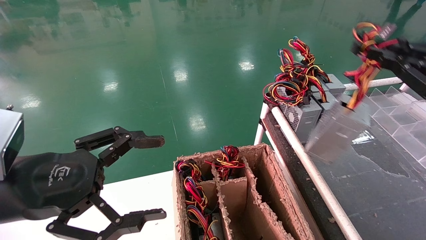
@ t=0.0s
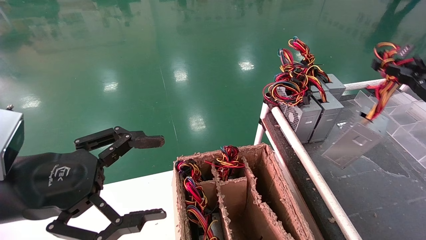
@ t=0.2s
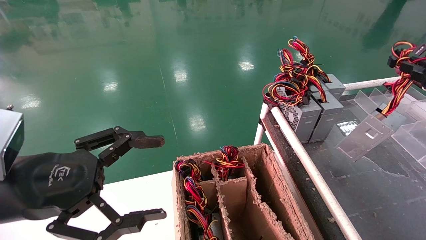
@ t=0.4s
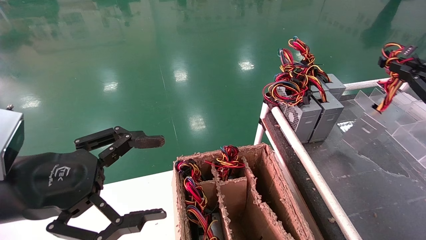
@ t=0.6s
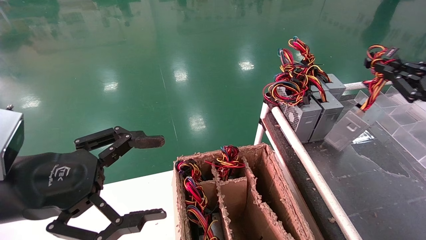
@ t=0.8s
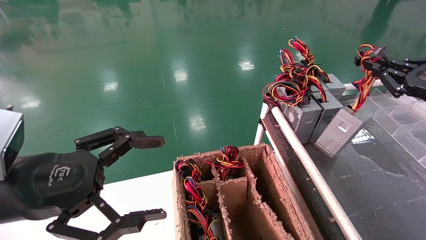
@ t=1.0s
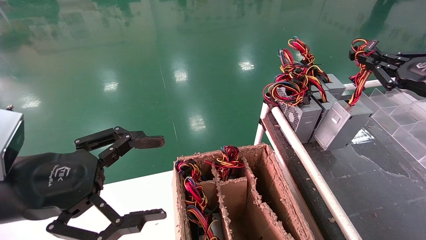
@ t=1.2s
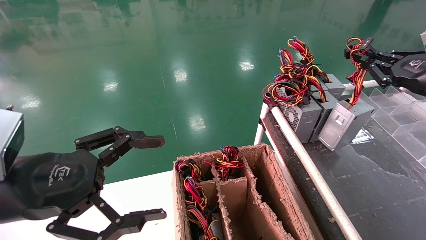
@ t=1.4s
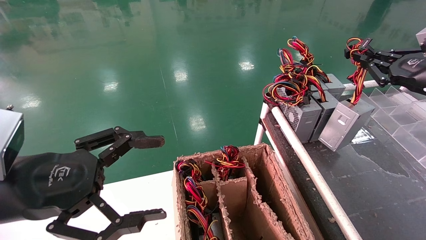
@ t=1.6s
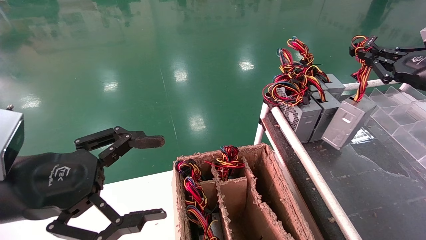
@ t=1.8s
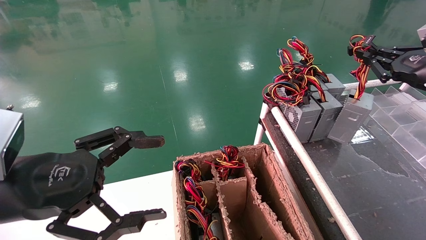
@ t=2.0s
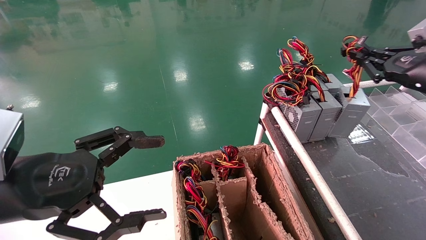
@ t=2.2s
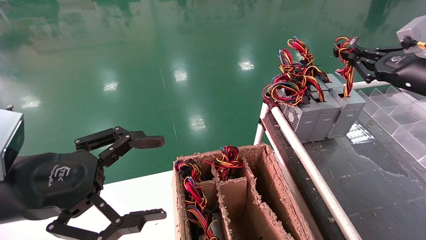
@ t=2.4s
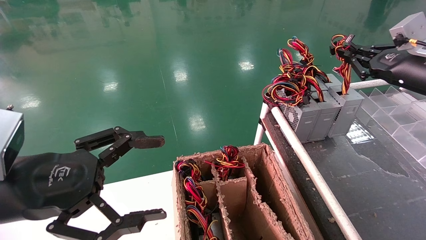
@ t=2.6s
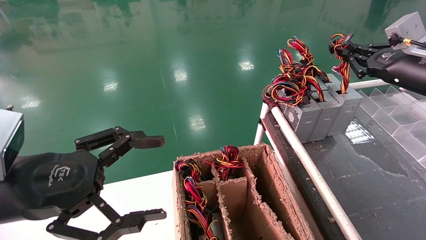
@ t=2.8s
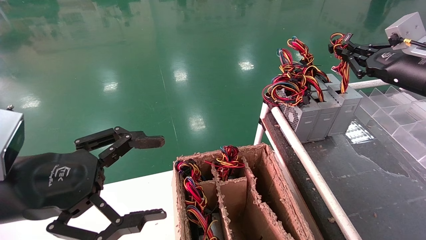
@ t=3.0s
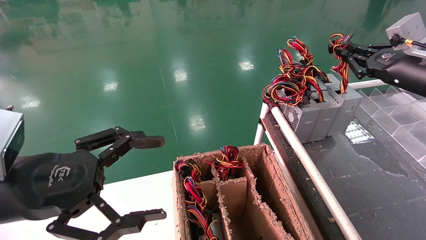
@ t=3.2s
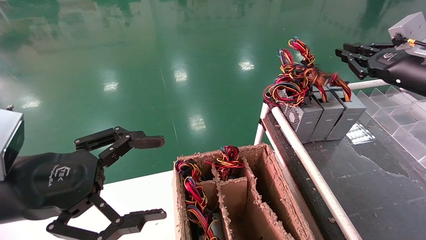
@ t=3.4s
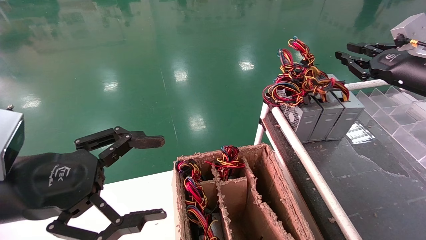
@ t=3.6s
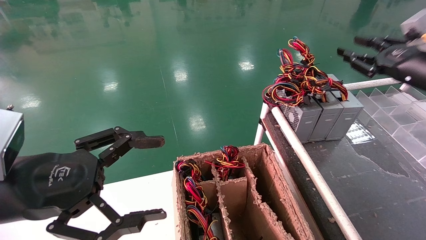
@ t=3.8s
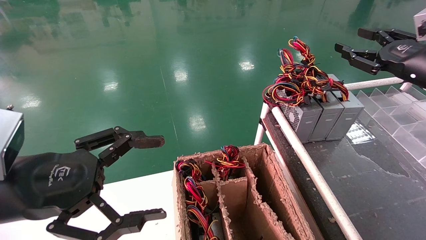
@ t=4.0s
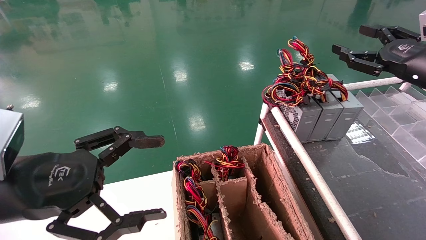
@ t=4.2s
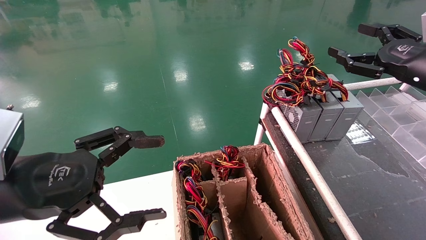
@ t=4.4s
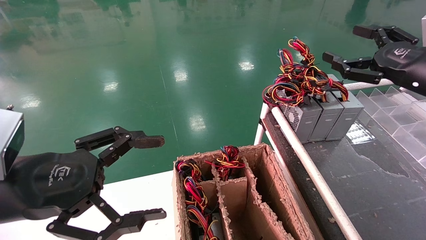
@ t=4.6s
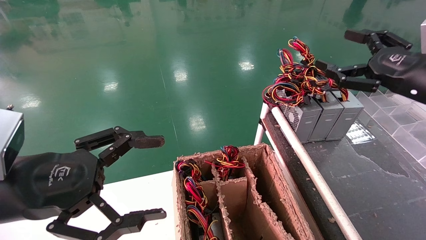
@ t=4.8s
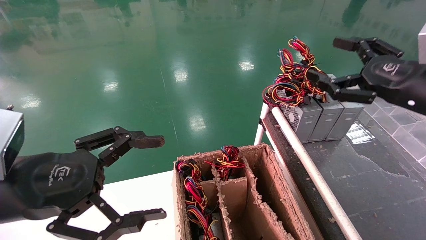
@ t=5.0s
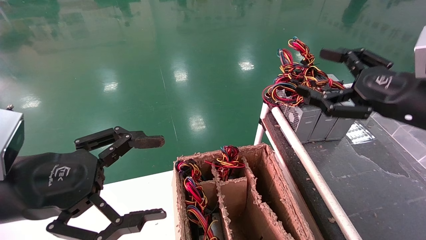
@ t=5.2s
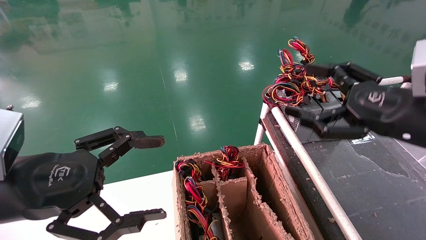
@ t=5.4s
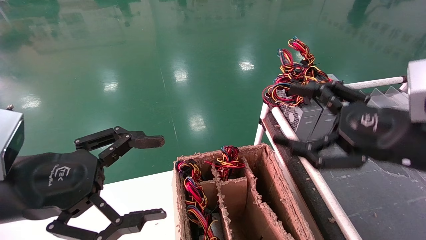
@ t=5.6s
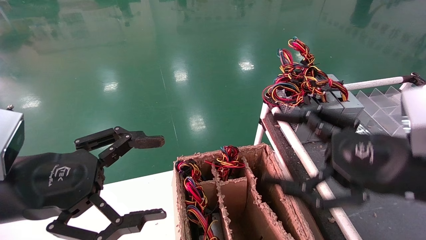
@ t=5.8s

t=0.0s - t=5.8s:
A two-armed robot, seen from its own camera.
Step, t=0.0s - t=3.4s: Place the power supply on the operating table.
t=0.0s - t=1.4s: The right gripper shifts about 10 cm forward.
t=1.4s - t=2.8s: The right gripper changes place by some 5 cm.
t=2.8s - t=4.4s: The right gripper opens.
t=4.4s - t=5.8s: The right gripper shifts some 20 cm backward, to the left and downward.
